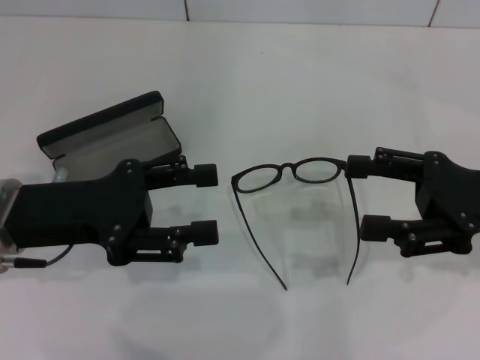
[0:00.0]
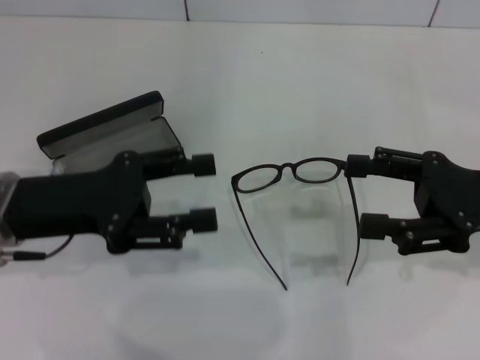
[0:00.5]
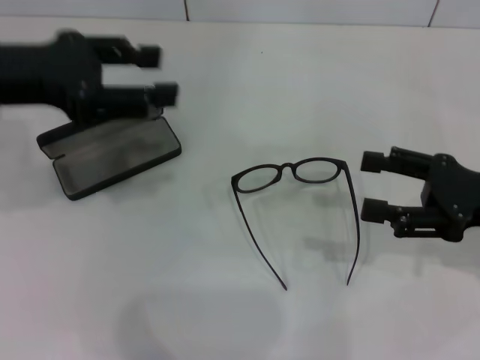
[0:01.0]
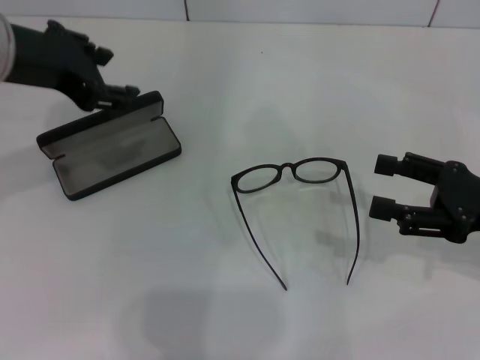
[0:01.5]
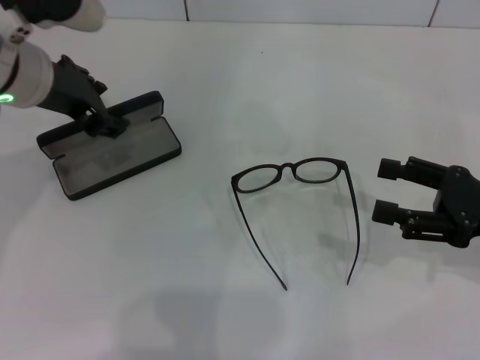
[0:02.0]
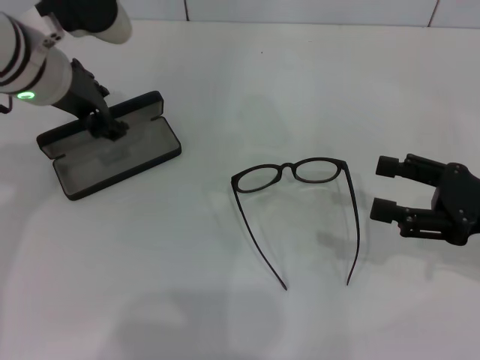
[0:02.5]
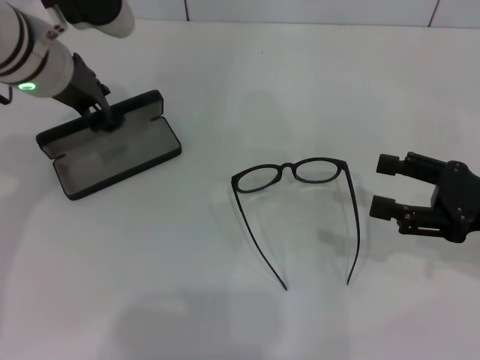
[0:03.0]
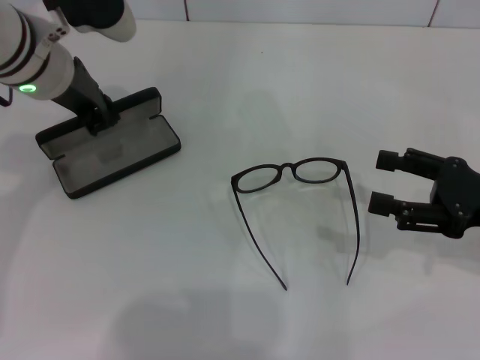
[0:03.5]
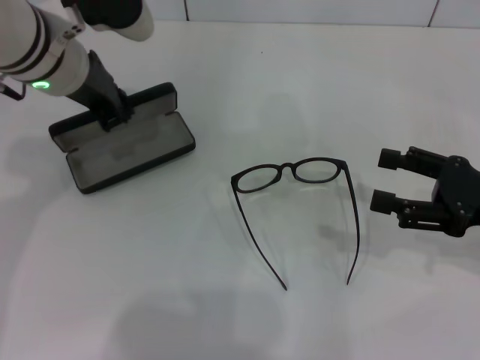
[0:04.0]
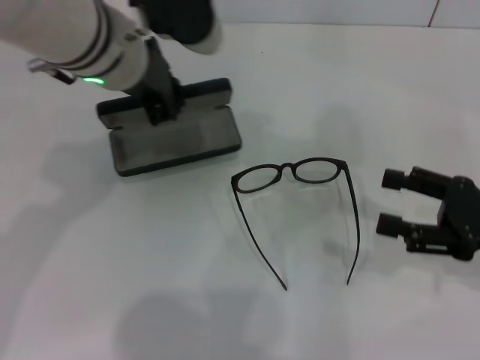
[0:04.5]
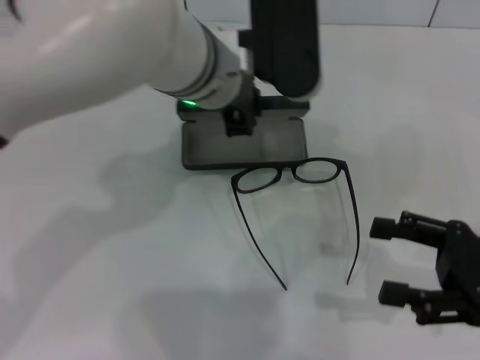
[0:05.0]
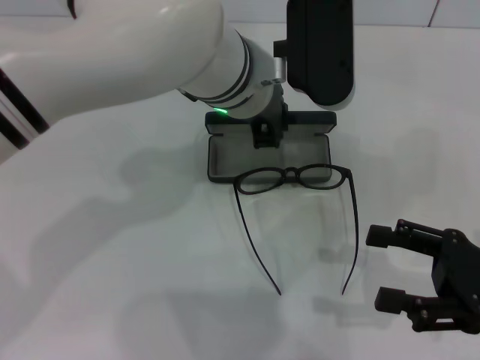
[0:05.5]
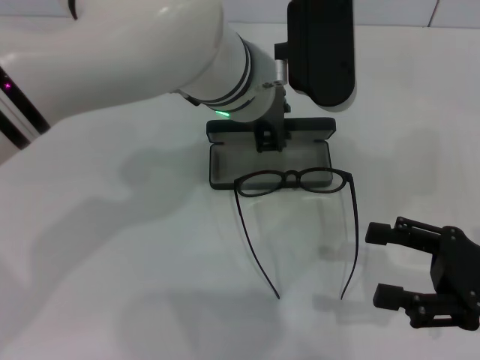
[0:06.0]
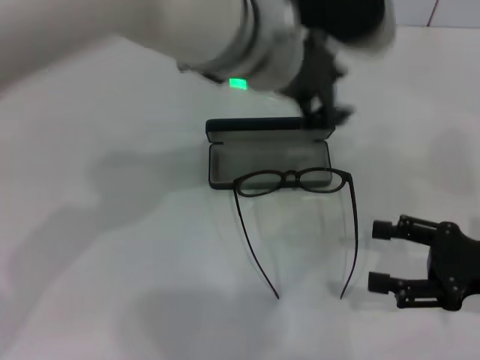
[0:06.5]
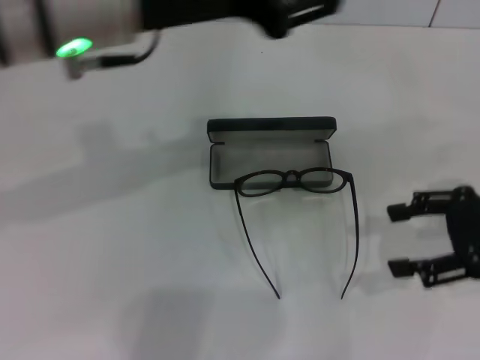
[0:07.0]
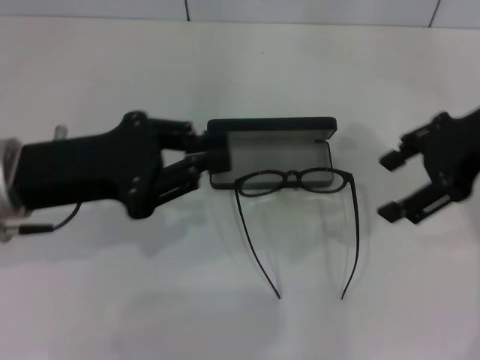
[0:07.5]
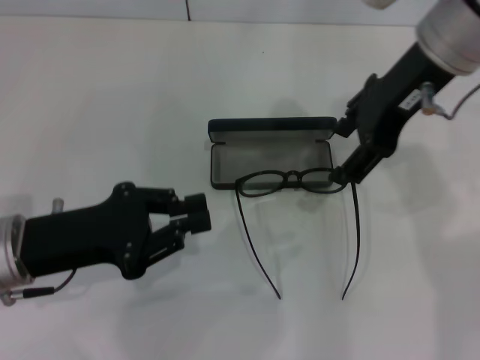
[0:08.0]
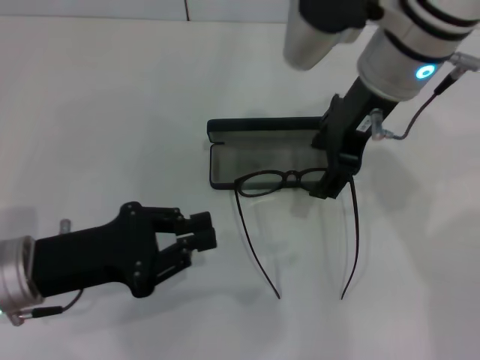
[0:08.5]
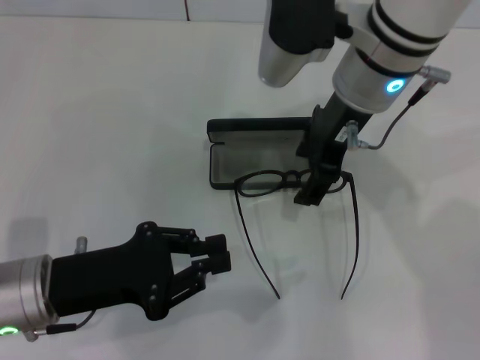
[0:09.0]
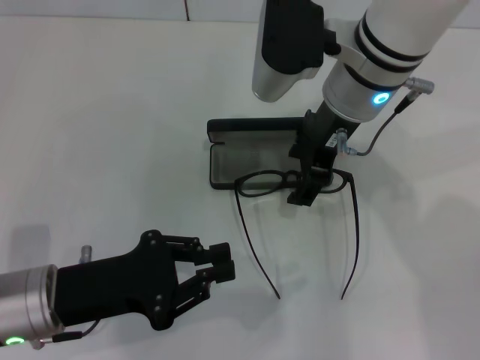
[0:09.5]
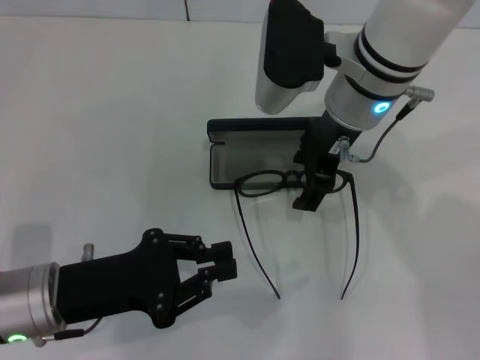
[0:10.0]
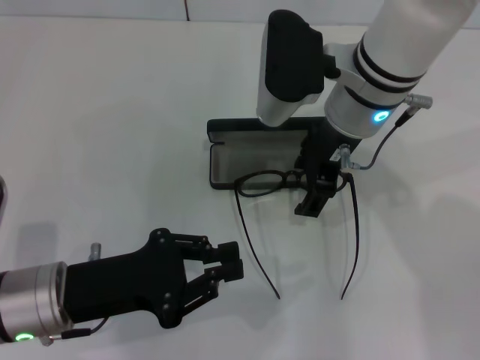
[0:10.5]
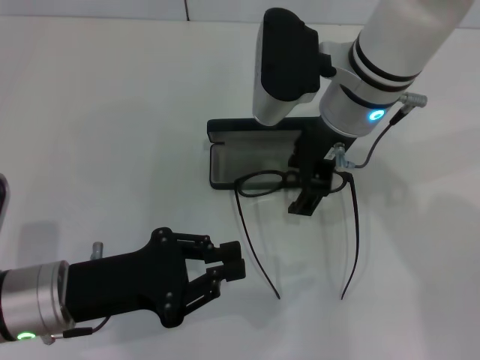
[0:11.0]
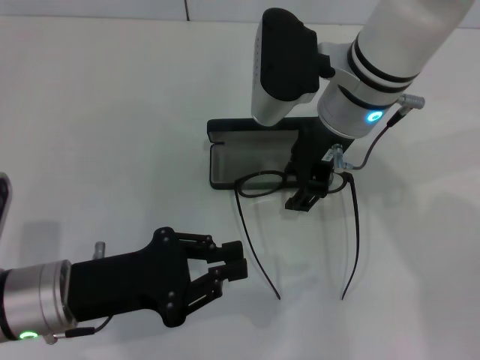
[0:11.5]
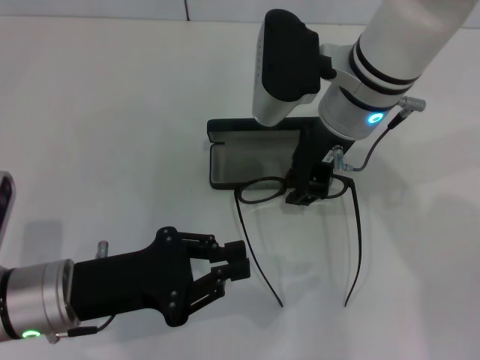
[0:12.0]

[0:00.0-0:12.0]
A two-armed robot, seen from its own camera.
Step, 0:00.0 to 0:03.0: Grab the glasses case with your left hand.
Step, 0:03.5 to 0:05.5: Place the glasses case in the center of the table with your left hand.
0:00.0 to 0:02.0: The left gripper goes about 15 cm forward and upward.
0:02.0 to 0:04.0: The left gripper closes its fingers.
0:04.0 to 0:06.0: The left gripper travels to the right by some 15 cm, while the right gripper is displaced backward by about 5 cm.
0:06.0 to 0:08.0: The left gripper travels to the left and backward by approximately 25 cm. Meanwhile the right gripper is displaced upward, forward and to the left by some 30 cm.
0:08.0 to 0:10.0: The right gripper travels downward and to the left by approximately 10 cm.
0:10.0 to 0:12.0: The right gripper closes up.

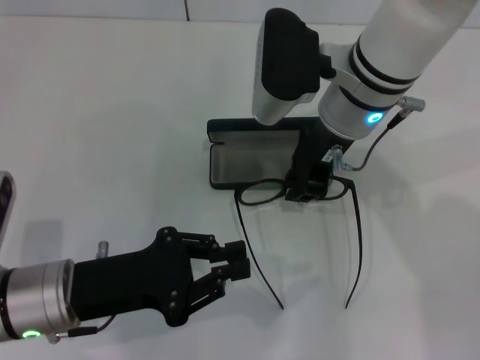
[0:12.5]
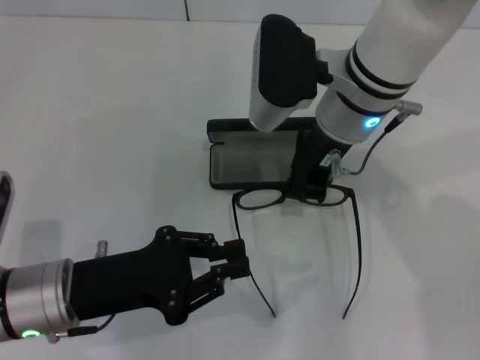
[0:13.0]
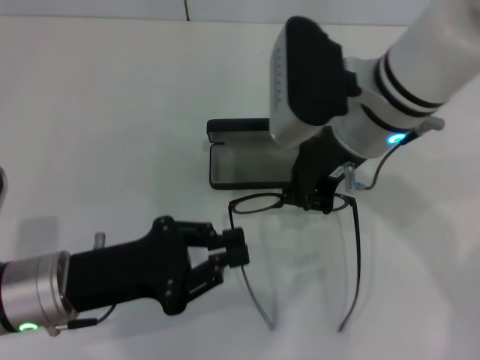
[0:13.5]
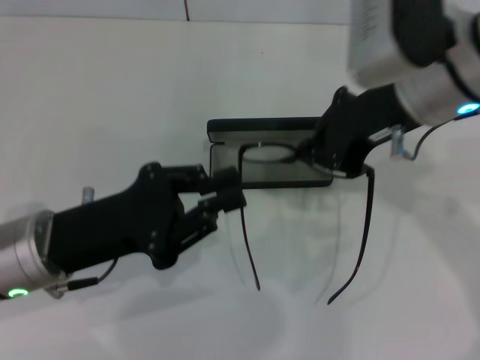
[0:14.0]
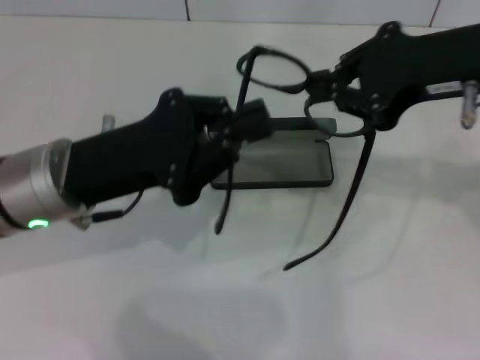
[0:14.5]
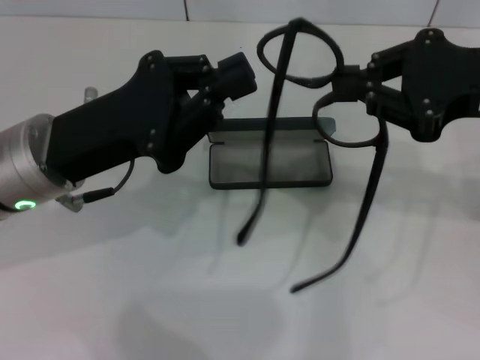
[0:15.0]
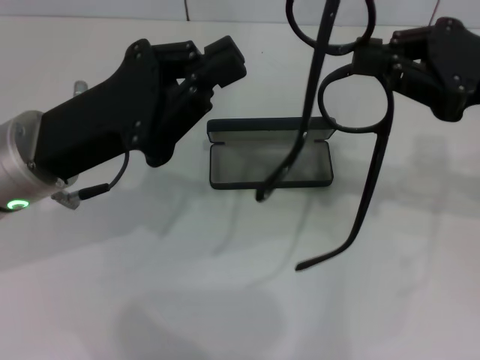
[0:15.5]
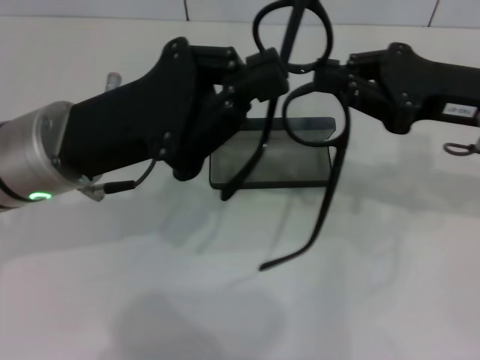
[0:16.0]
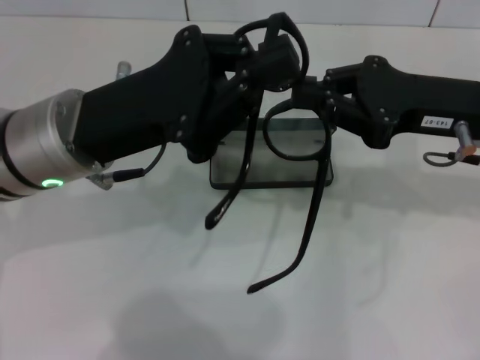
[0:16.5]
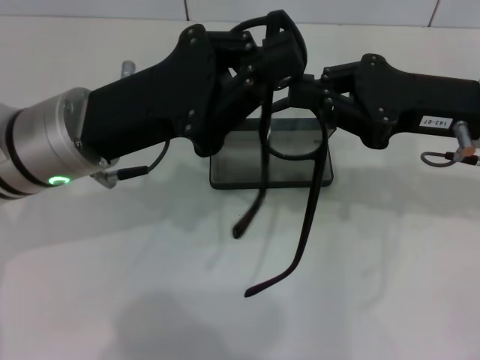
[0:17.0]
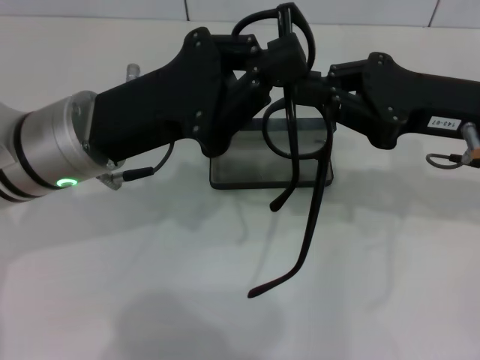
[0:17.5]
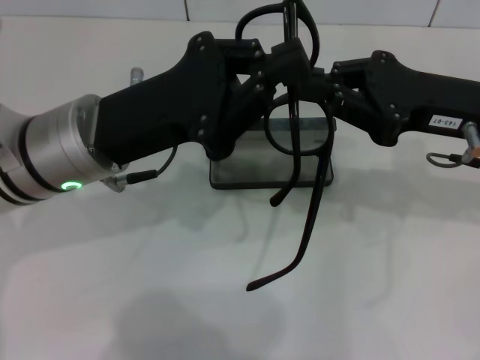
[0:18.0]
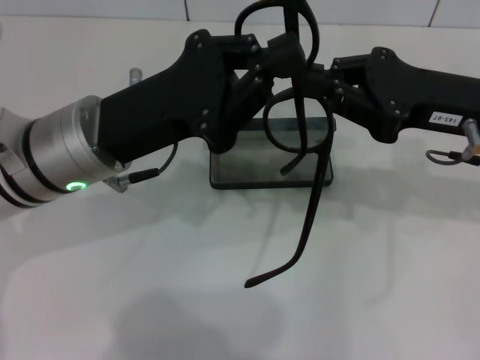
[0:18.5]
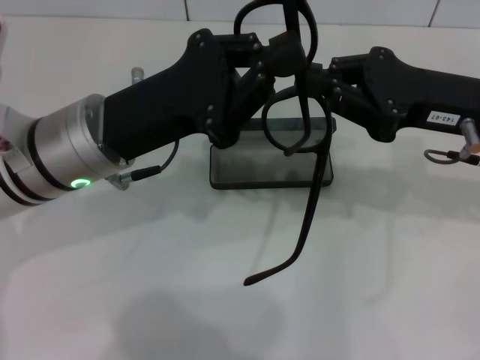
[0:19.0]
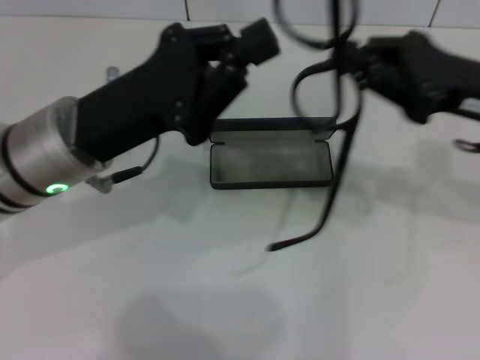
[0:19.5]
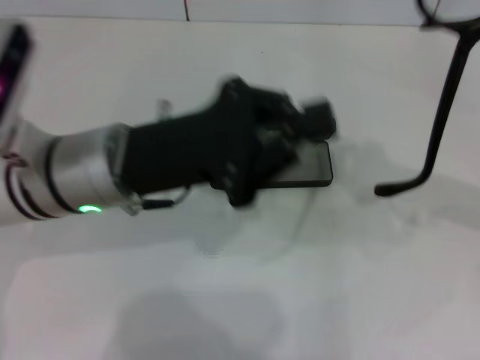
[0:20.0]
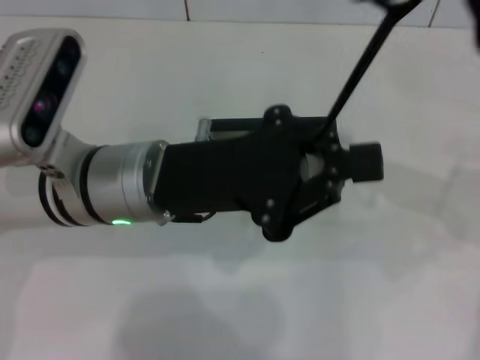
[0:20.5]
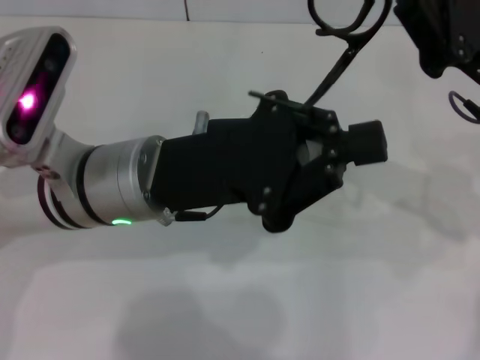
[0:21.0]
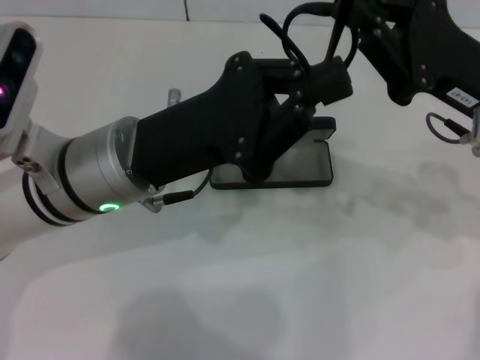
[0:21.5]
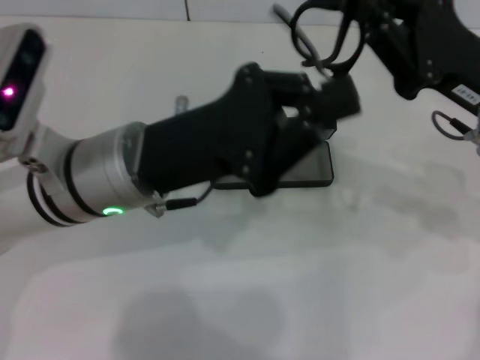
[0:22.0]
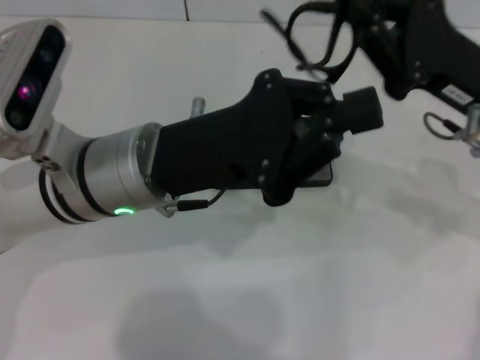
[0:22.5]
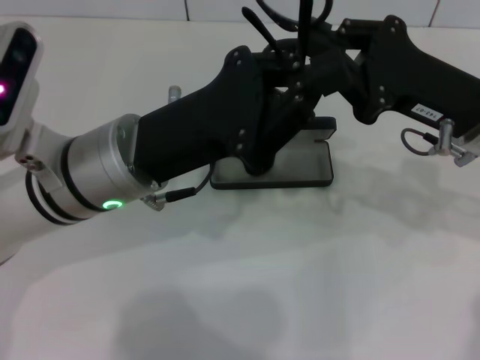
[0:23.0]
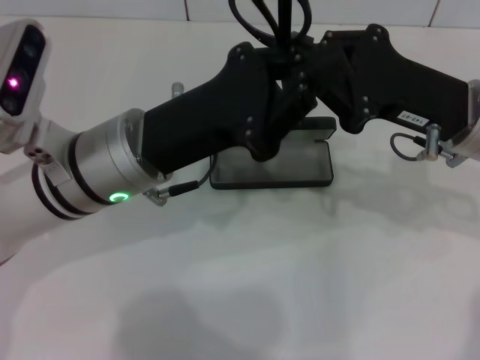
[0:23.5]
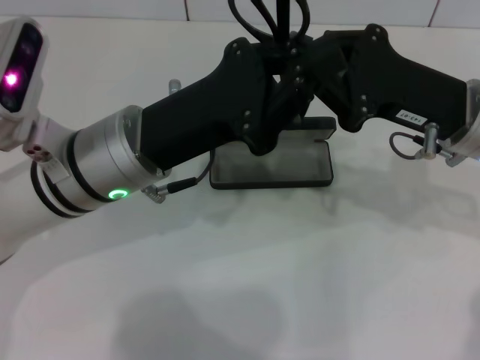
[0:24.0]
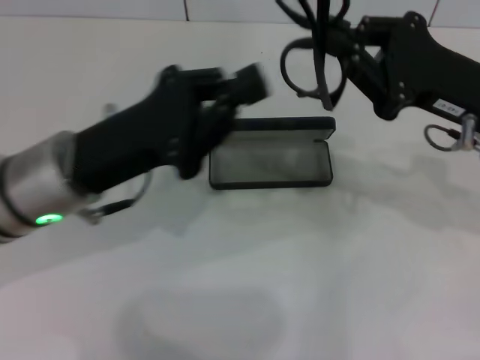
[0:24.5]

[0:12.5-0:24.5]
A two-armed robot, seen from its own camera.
Step, 0:13.0 to 0:24.0: Fold the frame with your left hand.
0:12.5 to 0:14.5: The left gripper goes about 10 cm upward and forward, while the right gripper is displaced to the right, upward and backward by about 15 cm.
0:14.5 to 0:16.5: The right gripper travels downward by roughly 10 cm.
0:16.5 to 0:18.5: There are only small adjustments of the grippers.
0:22.5 to 0:24.5: The left gripper travels to the left by about 5 cm.

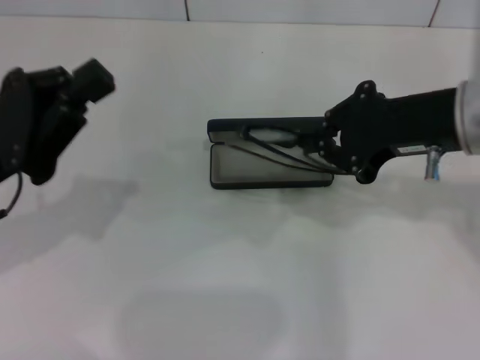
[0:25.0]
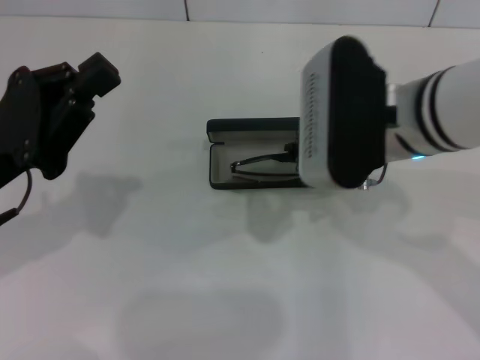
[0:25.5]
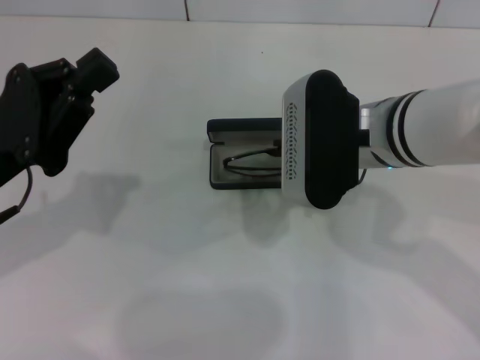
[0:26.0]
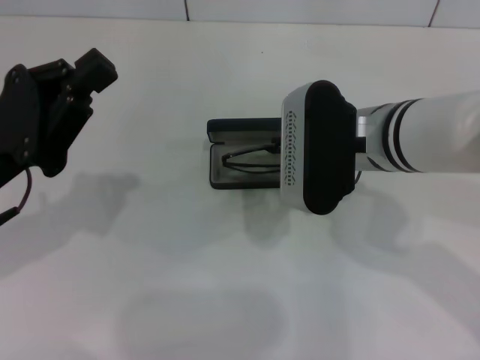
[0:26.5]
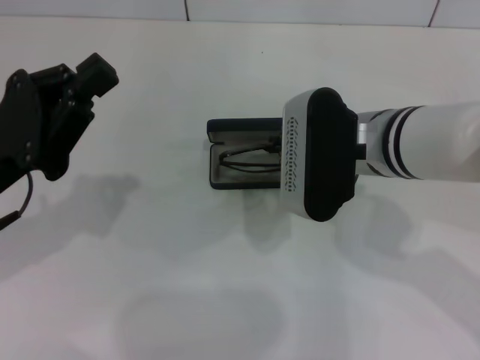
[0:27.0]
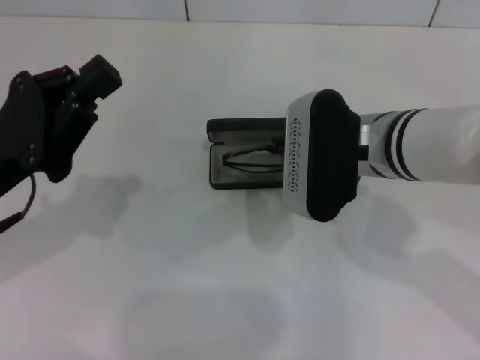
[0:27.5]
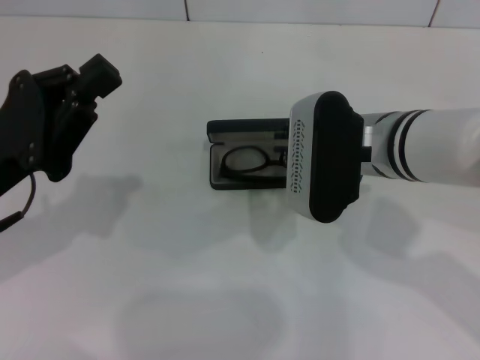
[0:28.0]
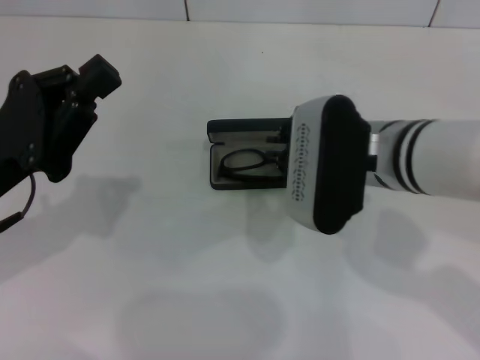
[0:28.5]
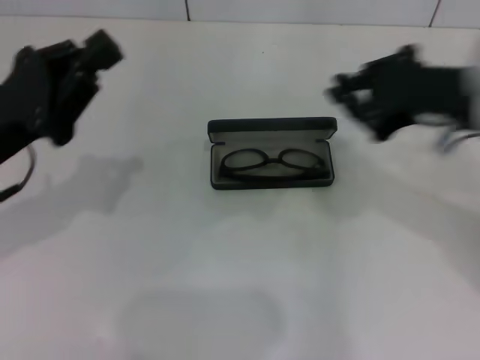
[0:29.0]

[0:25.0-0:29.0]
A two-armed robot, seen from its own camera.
Step, 0:25.0 to 0:28.5: Put the glasses into the case with your right hand.
0:25.0 to 0:27.0: The right gripper shifts roughly 10 cm to the left and downward.
0:27.0 to 0:29.0: The right gripper heads to the right and upward, covering some 10 cm.
